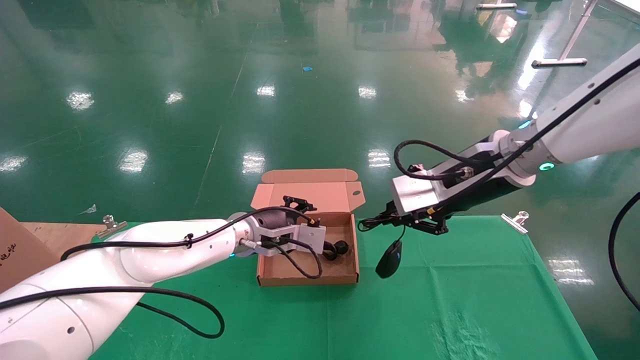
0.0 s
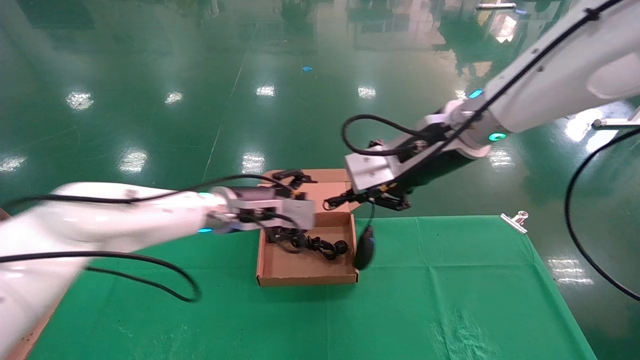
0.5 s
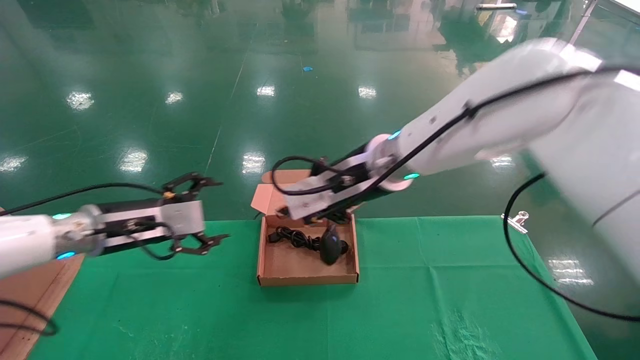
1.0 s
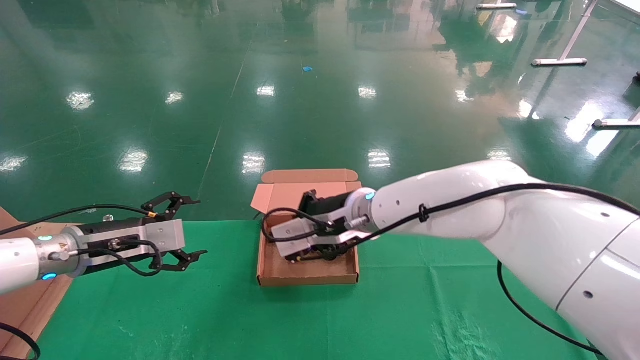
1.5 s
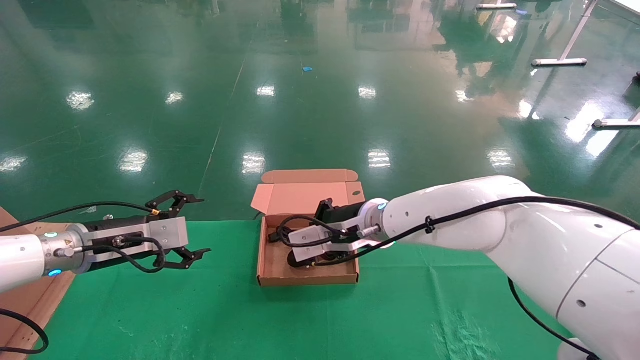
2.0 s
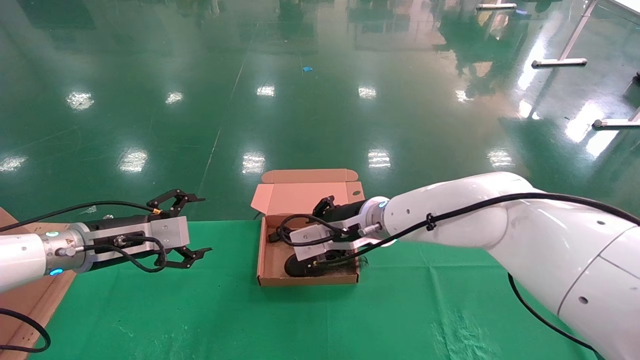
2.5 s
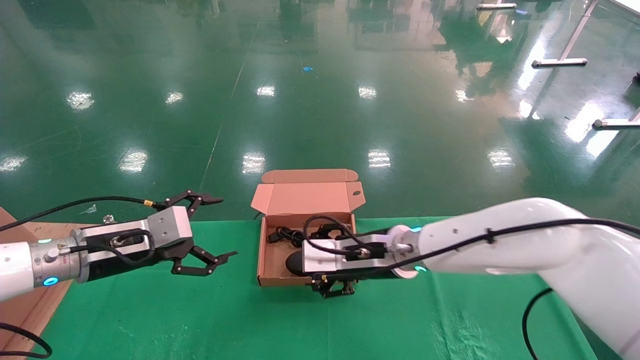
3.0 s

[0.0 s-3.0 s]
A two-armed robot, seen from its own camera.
Step, 0.0 to 2.5 s: Place the mouse and power cord into the box.
0.0 to 1.5 s: The right gripper goes roughly 20 cm to the left and downward; the left gripper goes approximately 20 cm to the left, and opens up.
1.5 to 3.0 s: The right gripper heads downward, covering about 5 cm, and opens.

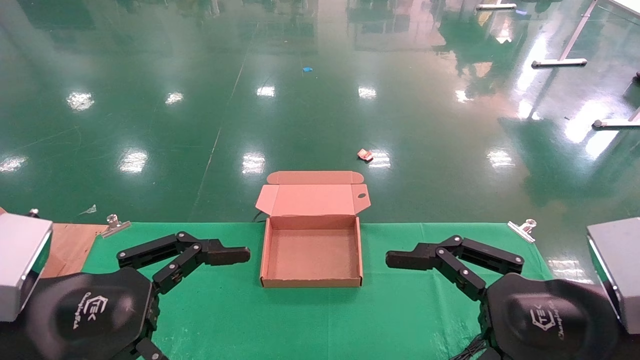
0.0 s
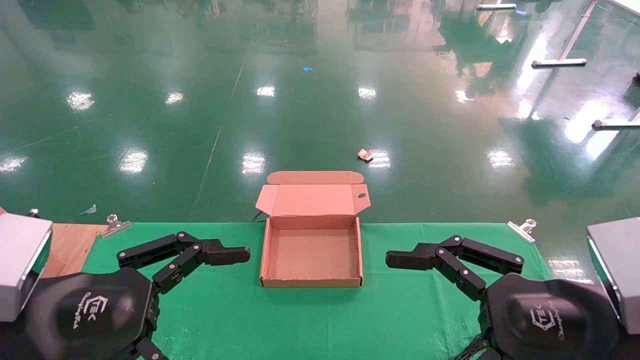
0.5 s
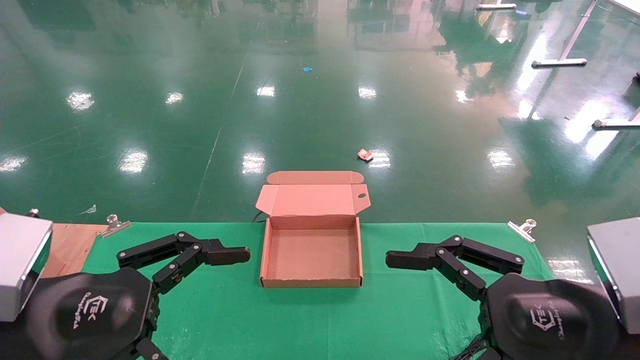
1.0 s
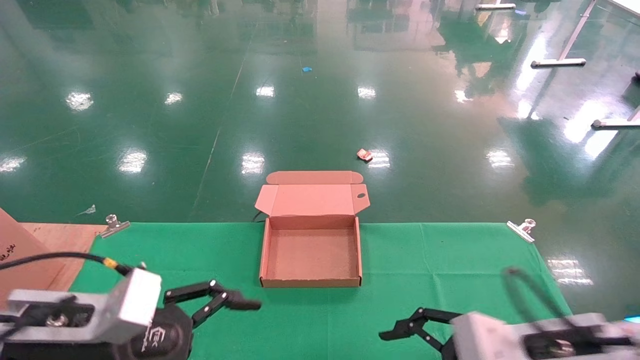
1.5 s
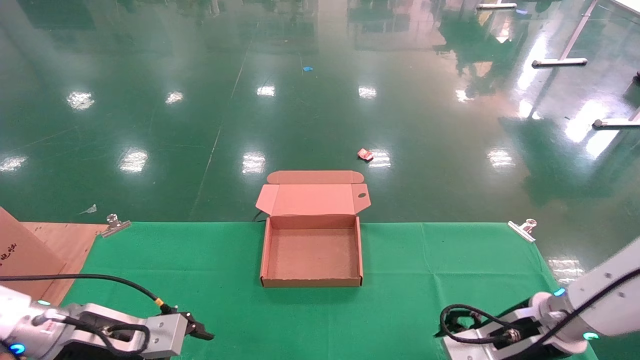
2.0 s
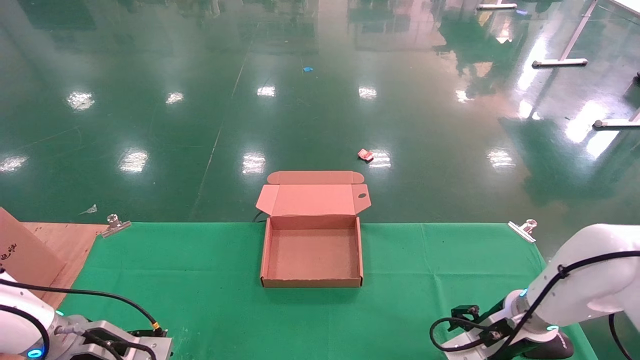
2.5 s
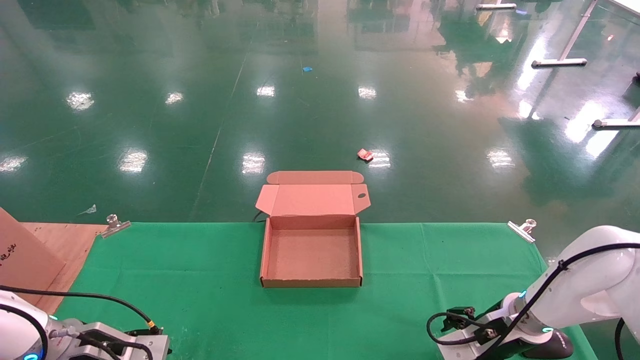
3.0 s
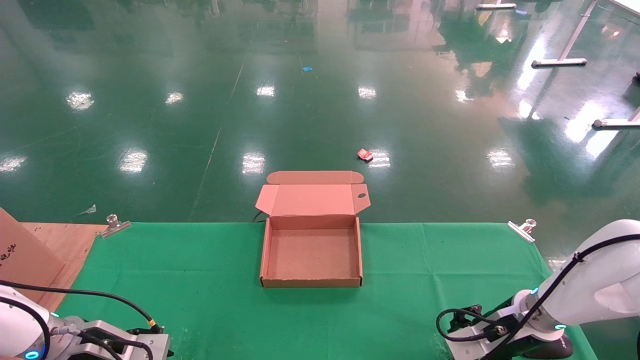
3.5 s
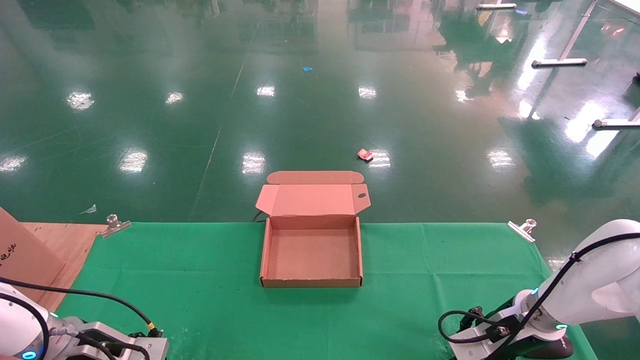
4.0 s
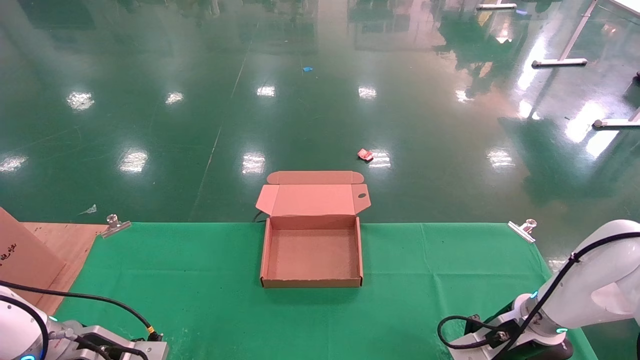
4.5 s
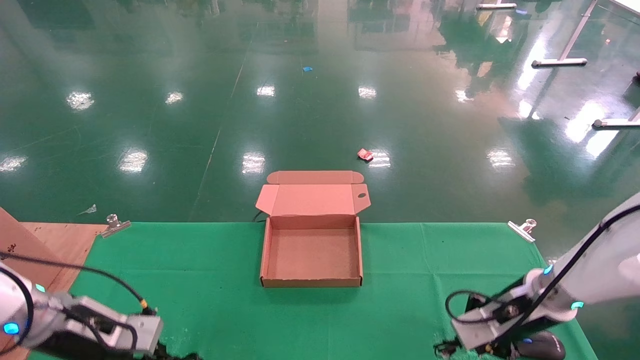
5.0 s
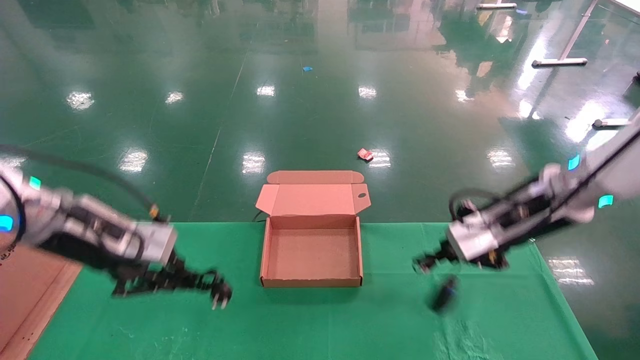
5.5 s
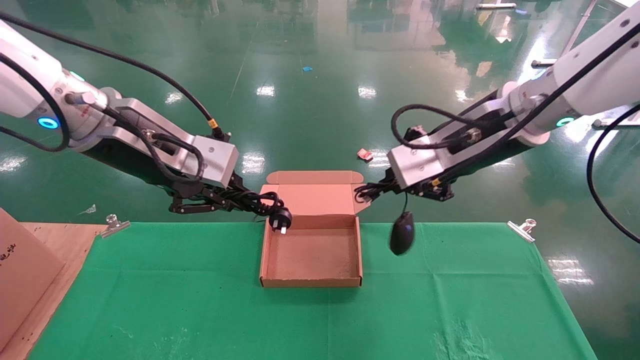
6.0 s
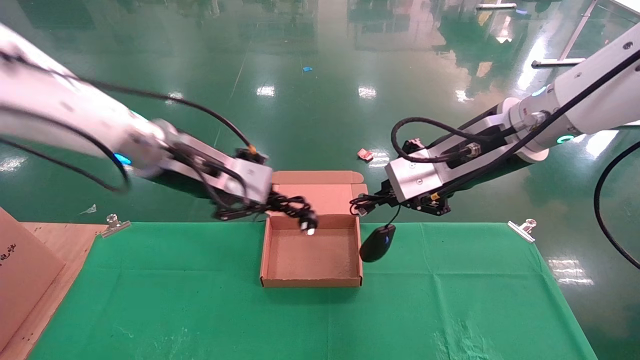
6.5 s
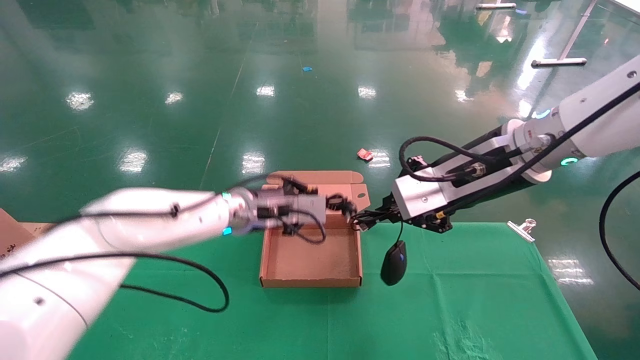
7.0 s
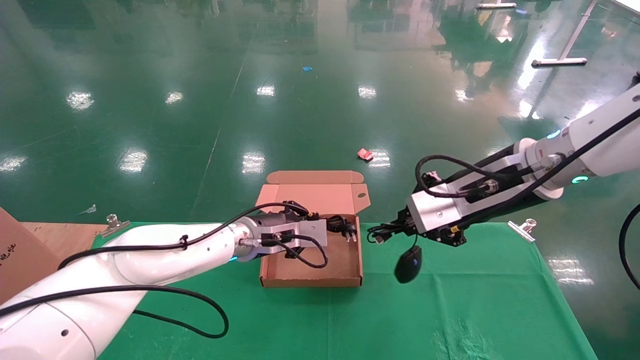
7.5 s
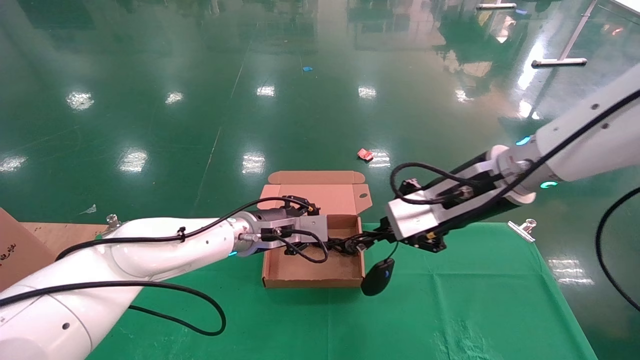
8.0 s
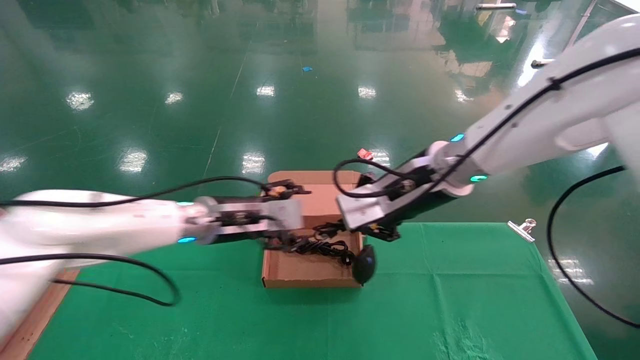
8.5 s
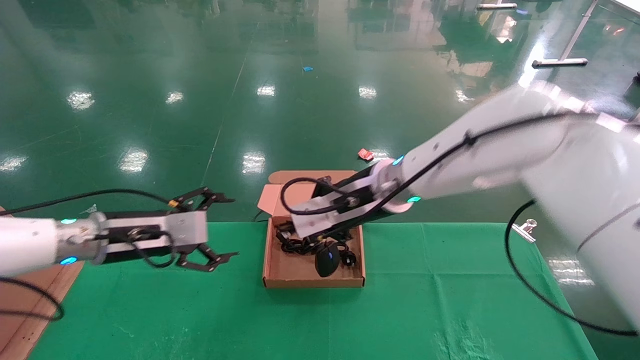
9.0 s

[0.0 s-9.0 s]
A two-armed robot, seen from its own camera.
Step, 2.0 to 5.0 s: Grab and lift both the mouse and power cord from the accessory packaging area at the same time.
0.0 to 2.0 s: Both grippers move forward and downward, roughly 20 cm.
2.0 to 4.5 s: The left gripper goes roughly 5 cm downward, and closes. The right gripper shifts approximately 5 cm forward, and closes its fingers.
4.5 to 7.0 s: The left gripper goes roughly 30 cm to the right, upward and forward. The right gripper heads upward, covering about 25 cm.
7.0 to 9.0 s: The left gripper is displaced to the left by approximately 15 cm, and opens its fingers. The right gripper shifts approximately 15 cm to the left, forward and downward.

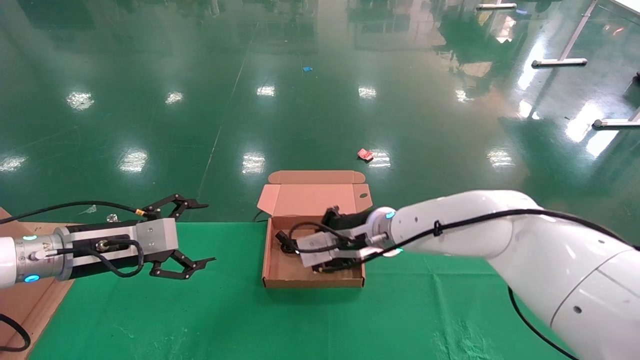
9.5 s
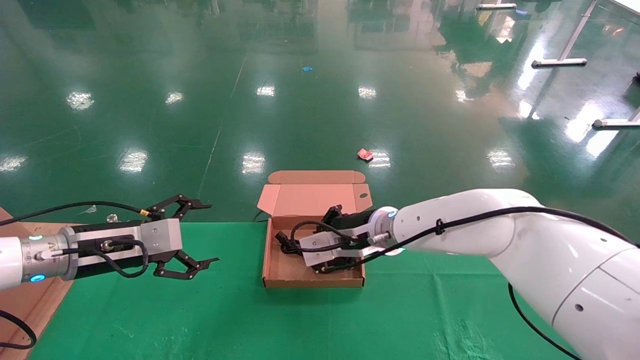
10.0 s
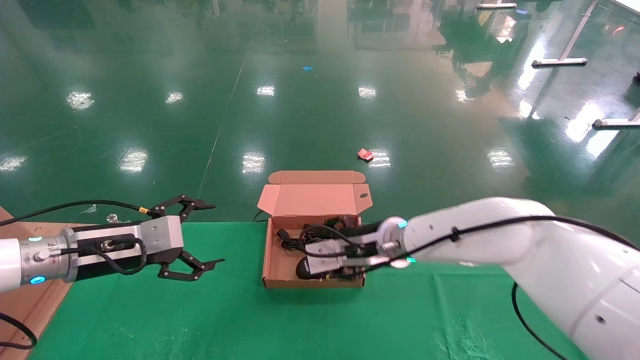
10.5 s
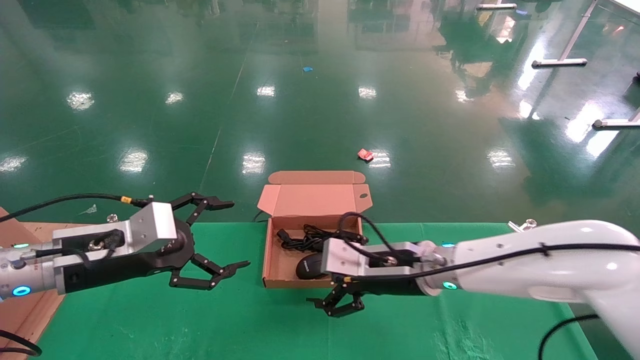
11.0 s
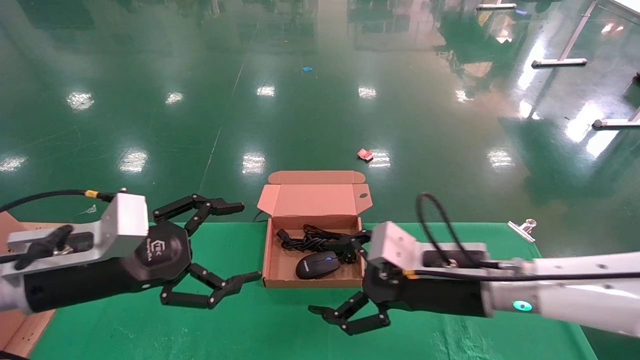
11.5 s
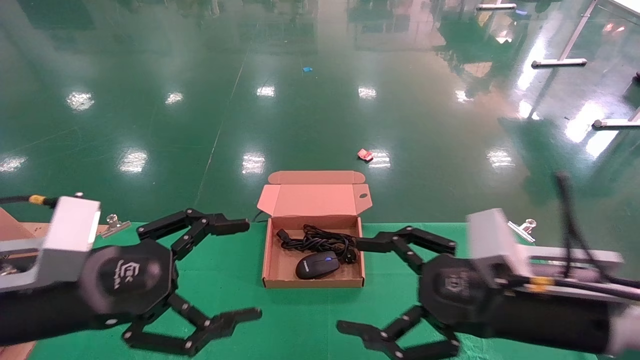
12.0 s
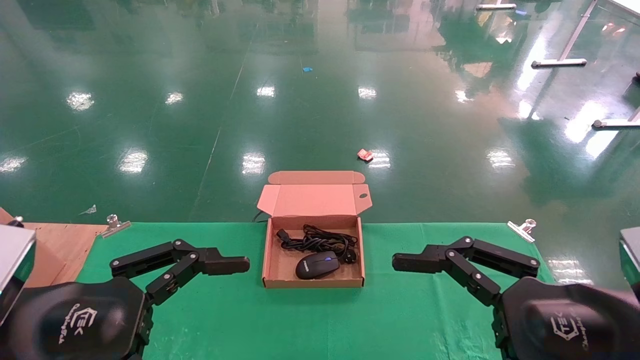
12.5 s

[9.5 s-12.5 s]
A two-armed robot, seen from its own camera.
9.5 to 11.0 s: The left gripper goes some 5 cm backward, while the right gripper goes approximately 10 cm backward and to the right, and opens.
11.0 to 12.5 s: The left gripper goes roughly 15 cm backward; the right gripper shifts about 25 cm backward and to the right.
